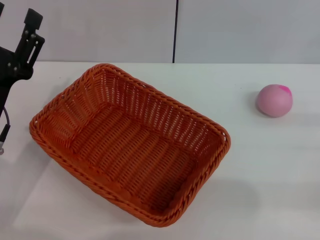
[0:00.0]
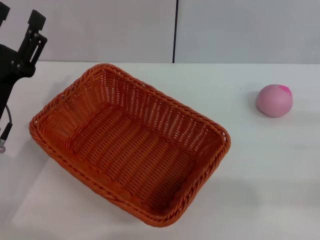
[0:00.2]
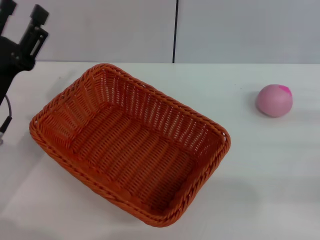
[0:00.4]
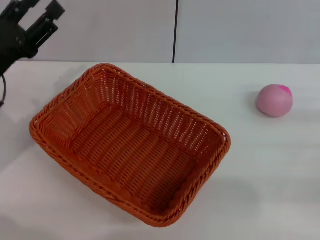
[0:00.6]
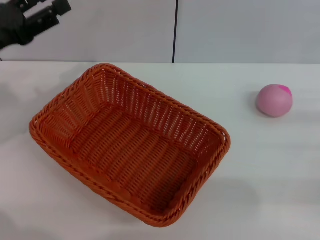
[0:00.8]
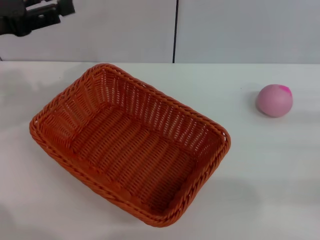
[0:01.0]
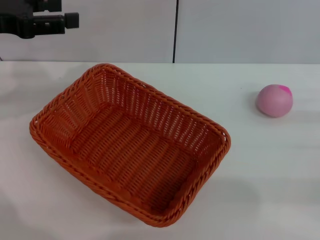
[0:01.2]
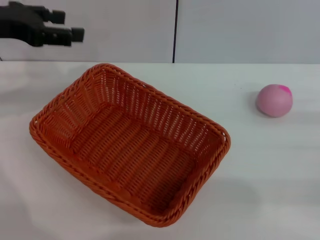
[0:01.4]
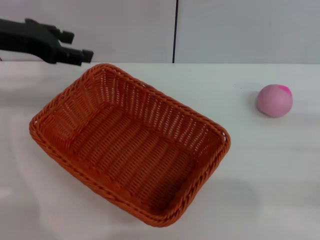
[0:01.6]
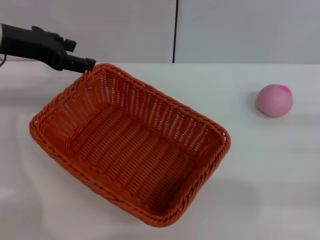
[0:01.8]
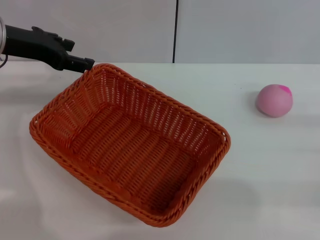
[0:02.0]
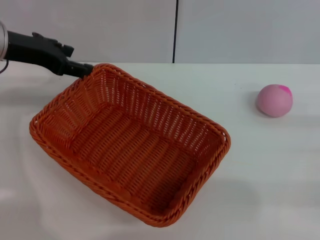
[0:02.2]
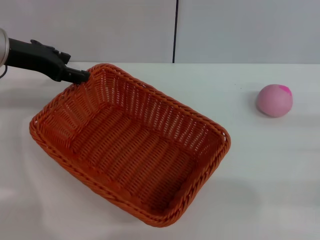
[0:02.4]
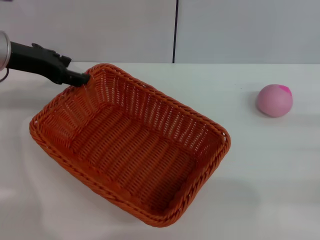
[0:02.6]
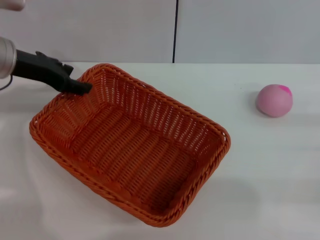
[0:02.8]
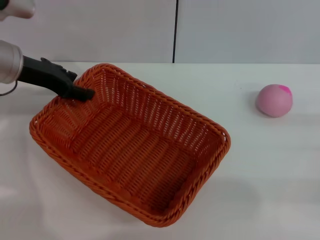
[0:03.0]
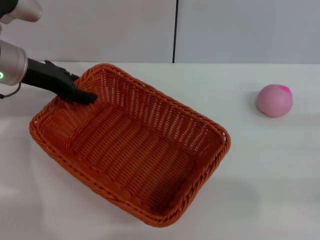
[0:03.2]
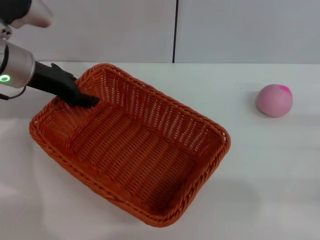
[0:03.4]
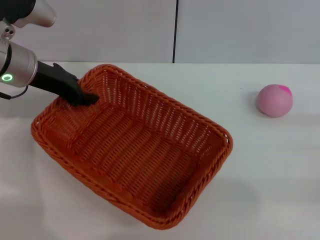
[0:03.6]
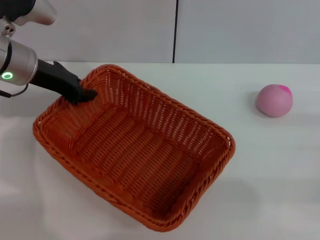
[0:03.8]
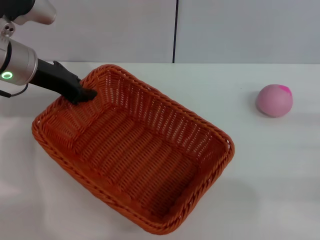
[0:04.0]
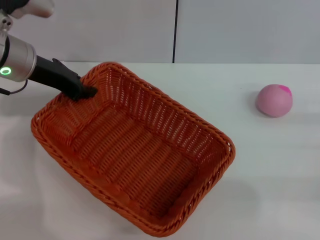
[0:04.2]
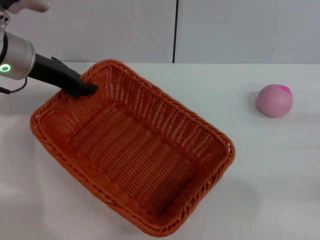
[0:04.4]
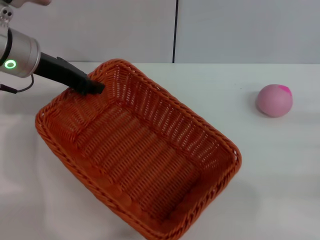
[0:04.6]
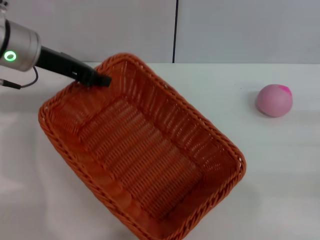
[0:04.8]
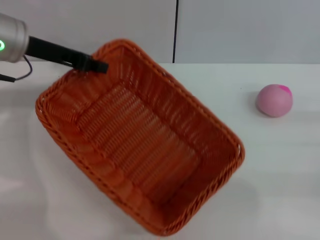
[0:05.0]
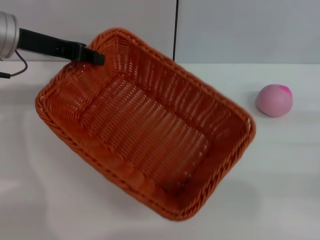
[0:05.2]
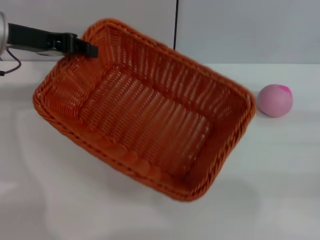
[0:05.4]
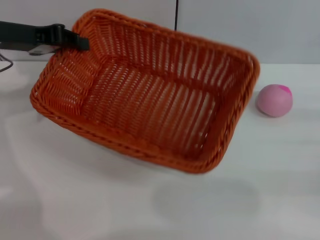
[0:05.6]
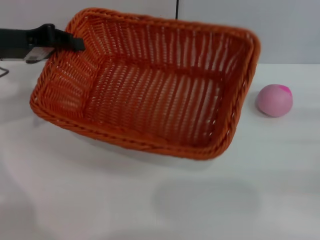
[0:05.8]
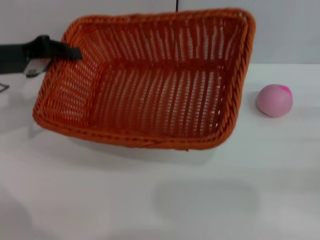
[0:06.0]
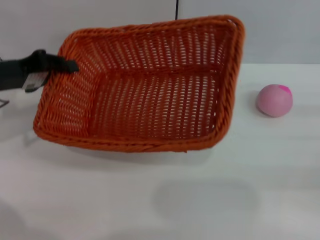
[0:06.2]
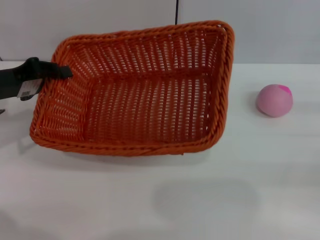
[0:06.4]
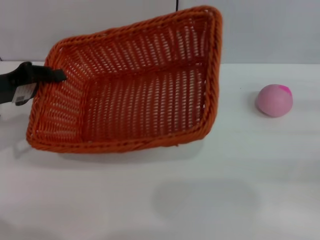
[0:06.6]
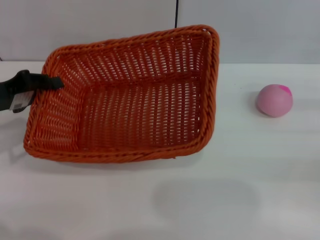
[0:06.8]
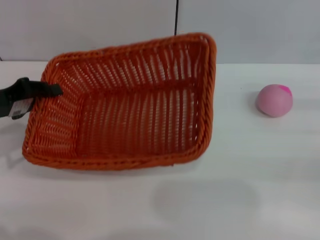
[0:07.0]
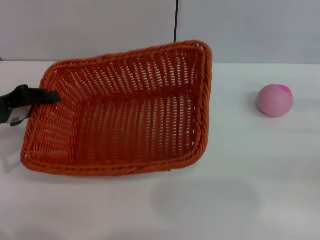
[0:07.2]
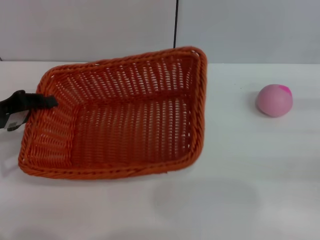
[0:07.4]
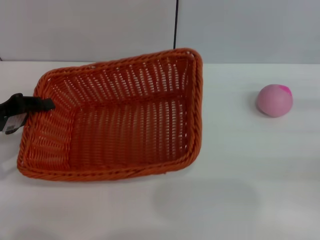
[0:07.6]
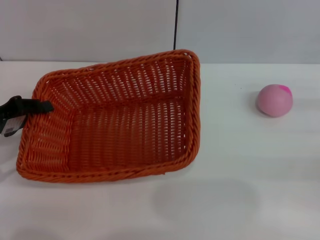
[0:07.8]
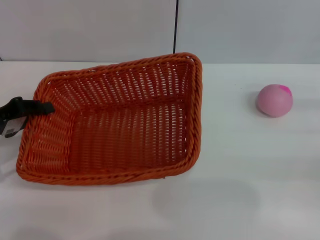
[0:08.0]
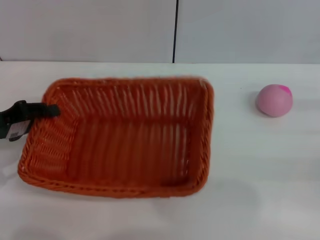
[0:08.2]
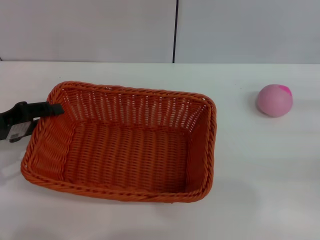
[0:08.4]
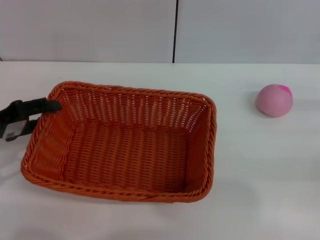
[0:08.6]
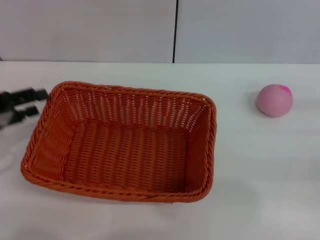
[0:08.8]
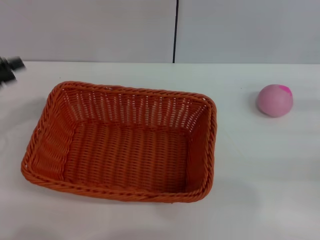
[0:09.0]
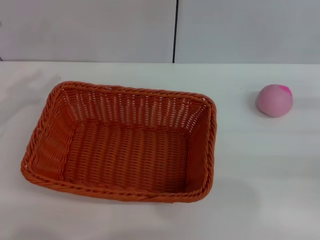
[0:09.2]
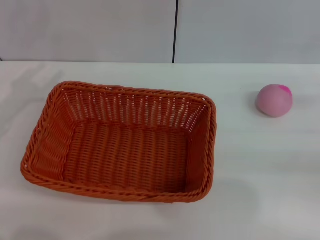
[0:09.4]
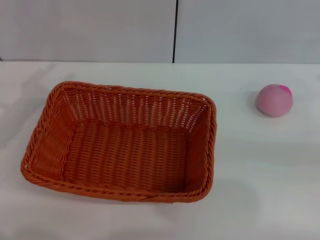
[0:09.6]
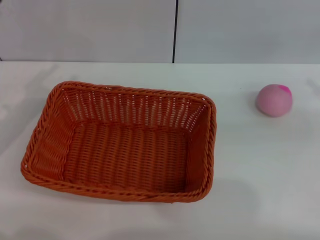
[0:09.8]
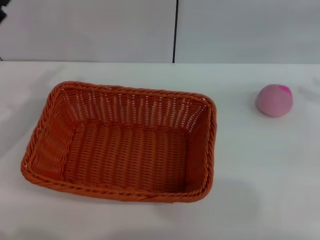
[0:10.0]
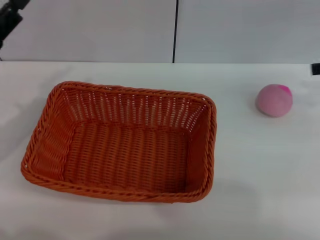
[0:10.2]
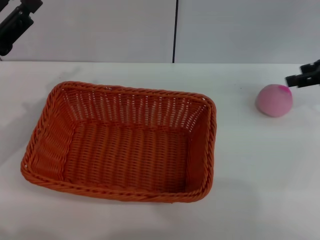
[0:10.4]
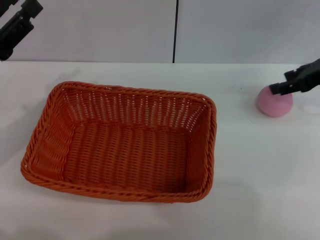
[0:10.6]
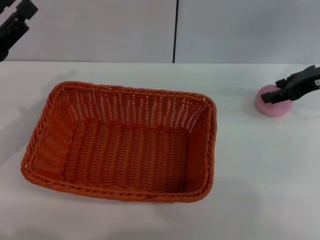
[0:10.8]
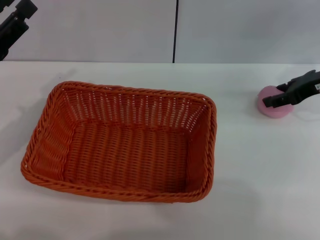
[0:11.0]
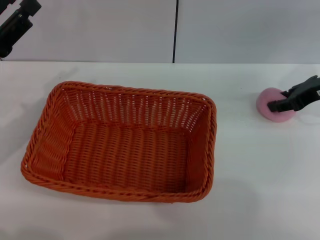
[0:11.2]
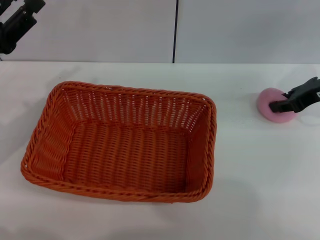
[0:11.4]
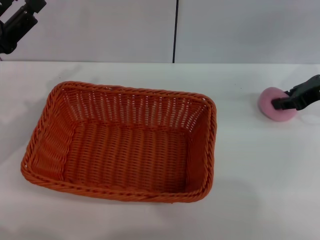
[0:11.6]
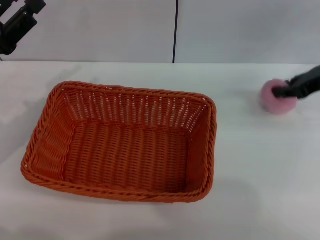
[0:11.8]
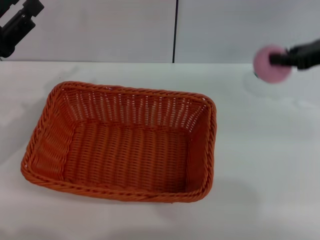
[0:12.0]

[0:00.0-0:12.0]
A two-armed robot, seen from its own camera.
Step, 0:00.0 to 0:04.6: Pick up the light basket with the left gripper.
Step, 0:09.0 to 0:12.0: Pick up the peach with the left gripper.
0:00.0 to 0:01.6: The left gripper heads upward and forward, covering some 20 cm.
0:01.6 to 0:03.0: The left gripper shifts roughly 5 cm downward.
0:03.0 to 0:04.4: The left gripper closes.
0:04.4 to 0:06.0: The left gripper shifts roughly 5 cm to the left.
0:06.0 to 0:07.6: The left gripper goes about 10 cm downward and backward.
0:07.6 to 0:09.0: The left gripper moves about 5 cm, and opens up.
0:09.0 to 0:10.4: The right gripper shifts approximately 15 cm forward and upward. The left gripper is displaced to the right by approximately 5 cm.
0:10.4 to 0:12.0: The right gripper closes.

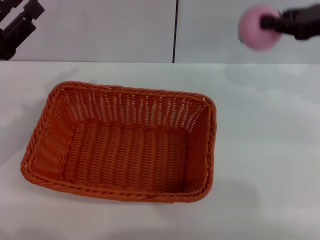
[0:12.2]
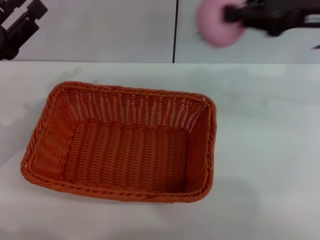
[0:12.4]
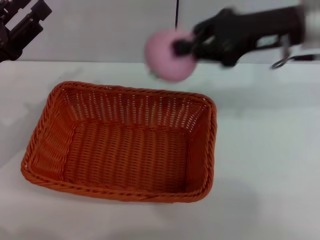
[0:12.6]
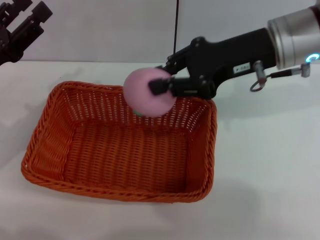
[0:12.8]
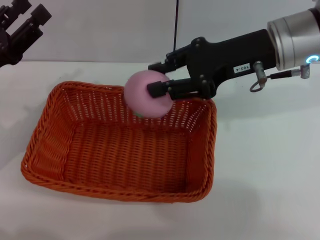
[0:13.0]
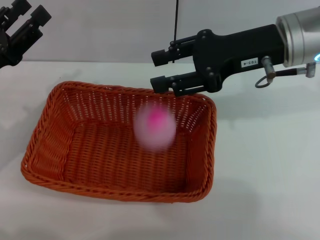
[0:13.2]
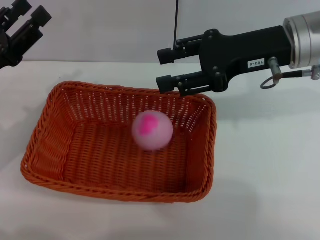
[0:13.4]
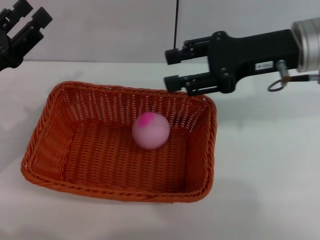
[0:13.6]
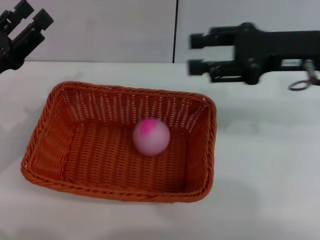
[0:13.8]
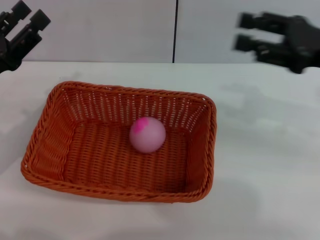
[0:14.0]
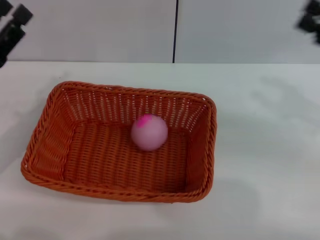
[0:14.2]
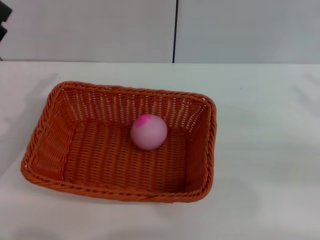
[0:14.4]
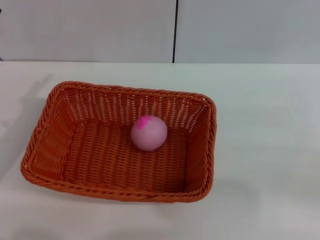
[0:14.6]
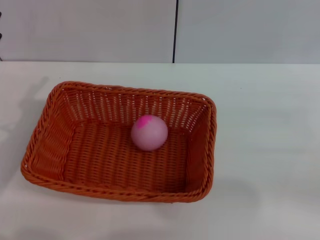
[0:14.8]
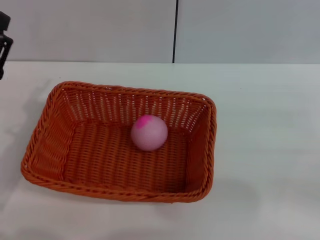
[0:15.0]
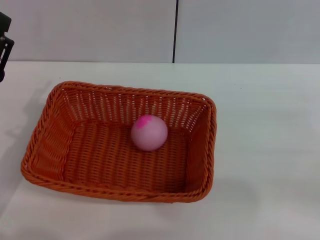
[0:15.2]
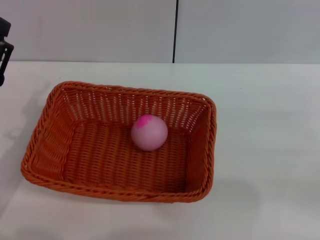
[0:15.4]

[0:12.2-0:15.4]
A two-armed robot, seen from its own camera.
0:12.2 to 0:13.8: The right gripper moves to the left, approximately 5 cm, and opens up.
0:13.8 to 0:15.4: The right gripper shifts roughly 20 cm to the right, backward and downward. Meanwhile the left gripper changes place by roughly 5 cm.
